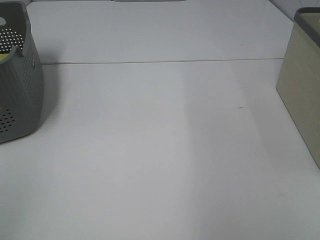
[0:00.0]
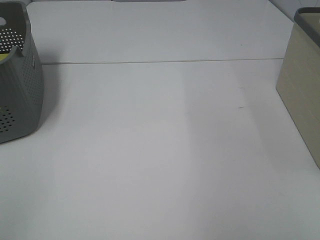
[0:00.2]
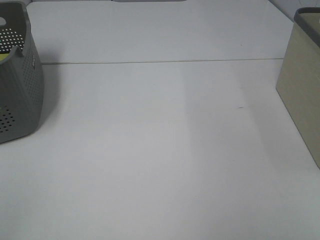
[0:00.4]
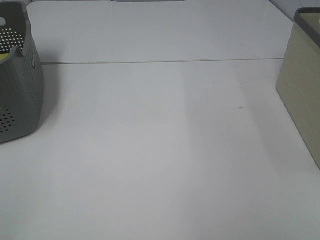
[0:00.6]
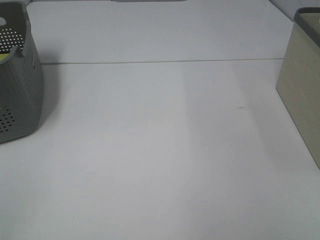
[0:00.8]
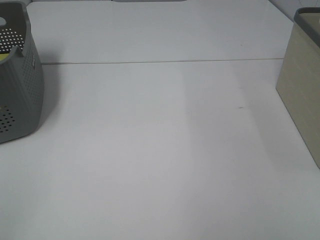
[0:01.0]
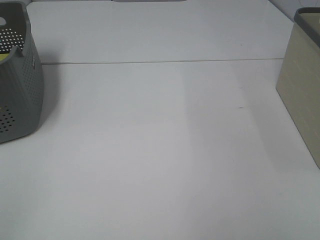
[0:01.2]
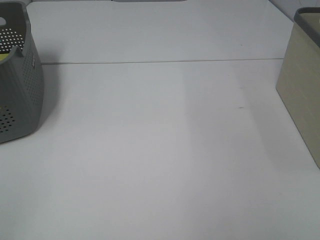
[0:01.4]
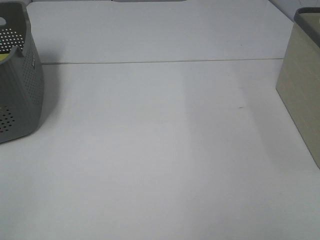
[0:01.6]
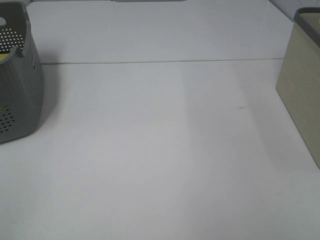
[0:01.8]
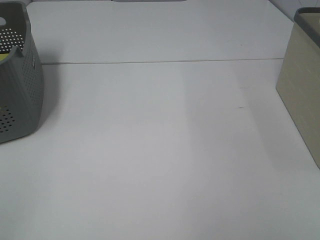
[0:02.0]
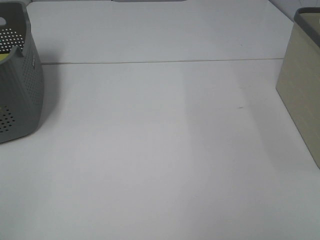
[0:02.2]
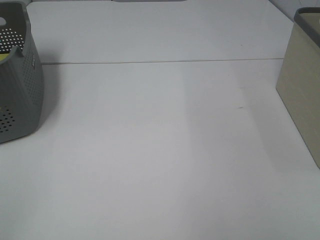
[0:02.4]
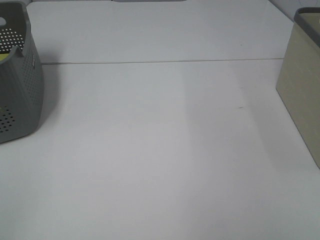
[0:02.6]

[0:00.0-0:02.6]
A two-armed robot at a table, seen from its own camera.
0:01.2 to 0:02.6: The two grippers keep their place.

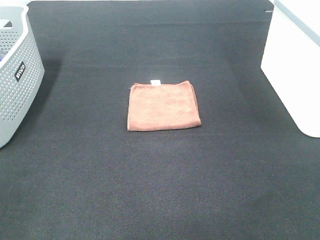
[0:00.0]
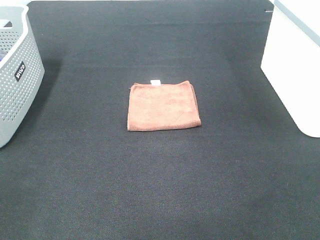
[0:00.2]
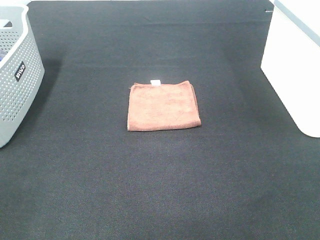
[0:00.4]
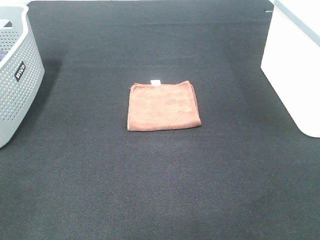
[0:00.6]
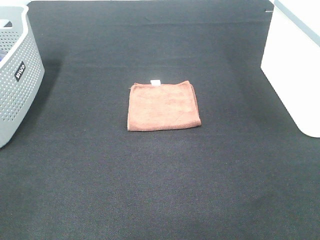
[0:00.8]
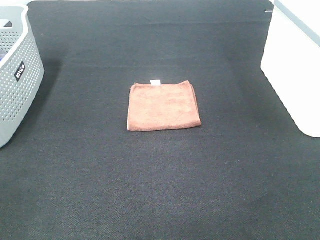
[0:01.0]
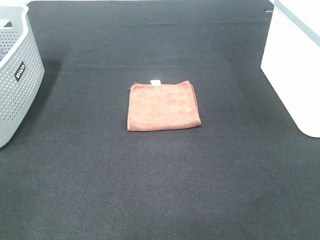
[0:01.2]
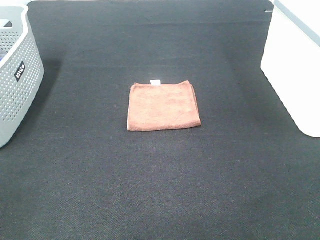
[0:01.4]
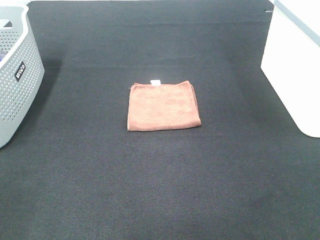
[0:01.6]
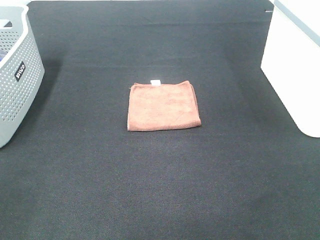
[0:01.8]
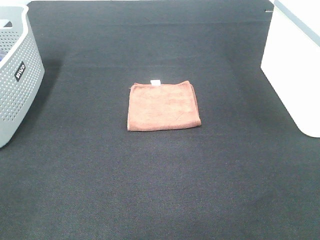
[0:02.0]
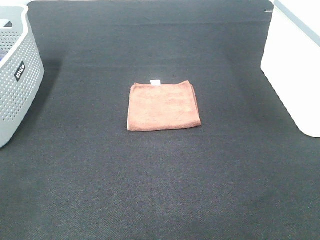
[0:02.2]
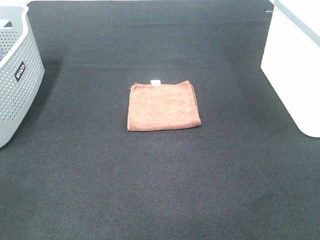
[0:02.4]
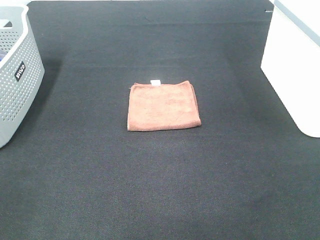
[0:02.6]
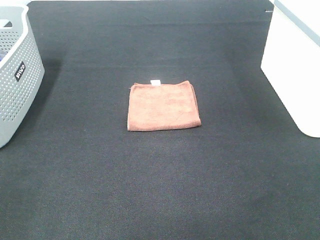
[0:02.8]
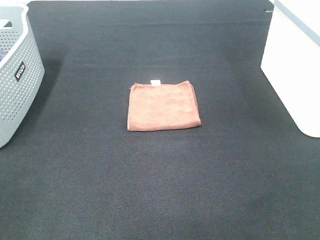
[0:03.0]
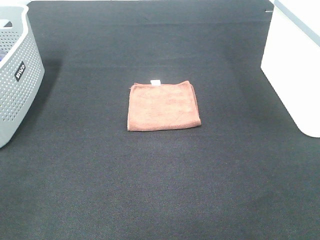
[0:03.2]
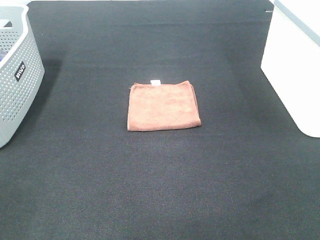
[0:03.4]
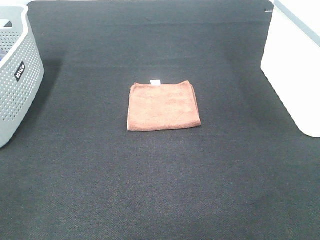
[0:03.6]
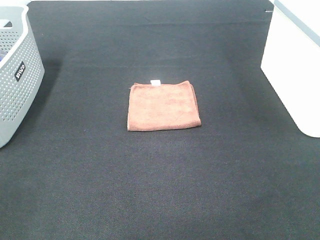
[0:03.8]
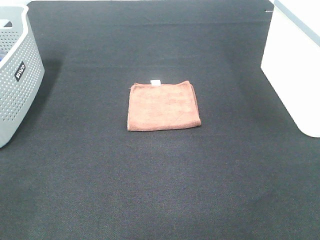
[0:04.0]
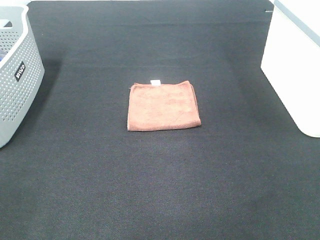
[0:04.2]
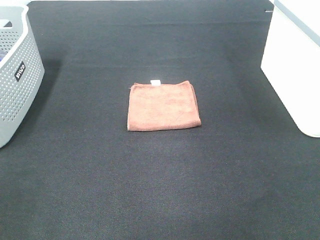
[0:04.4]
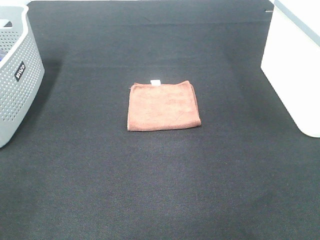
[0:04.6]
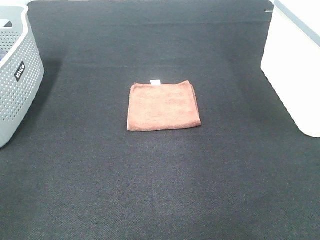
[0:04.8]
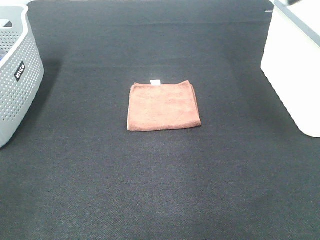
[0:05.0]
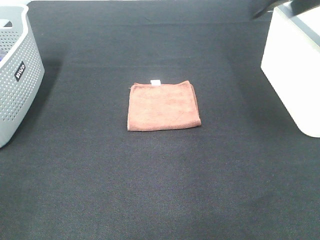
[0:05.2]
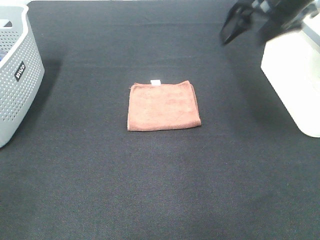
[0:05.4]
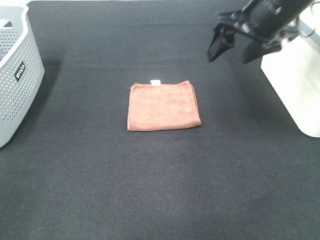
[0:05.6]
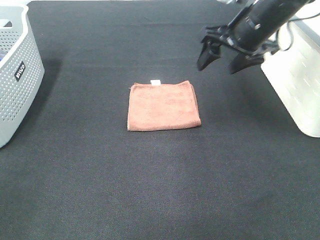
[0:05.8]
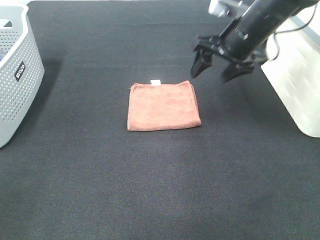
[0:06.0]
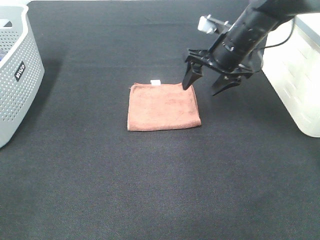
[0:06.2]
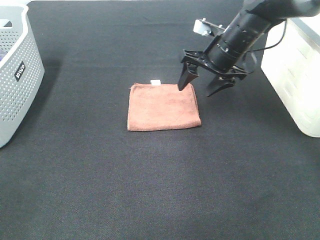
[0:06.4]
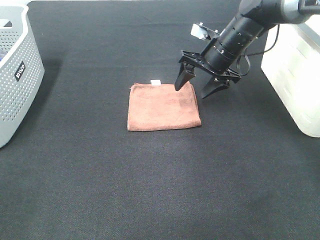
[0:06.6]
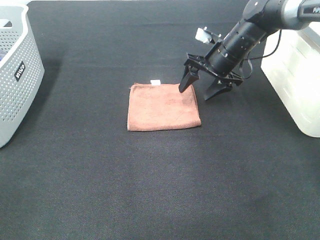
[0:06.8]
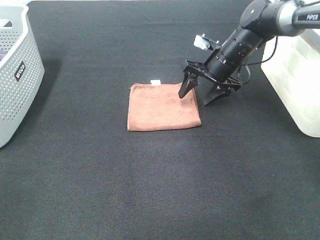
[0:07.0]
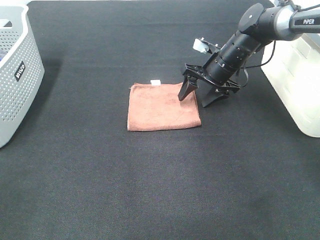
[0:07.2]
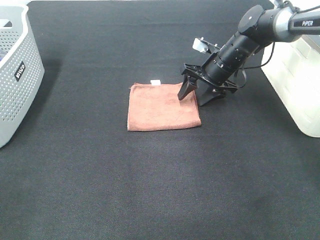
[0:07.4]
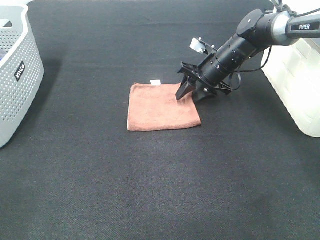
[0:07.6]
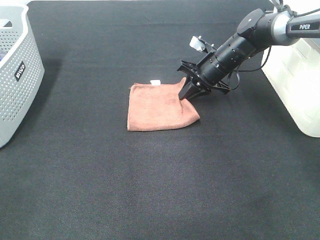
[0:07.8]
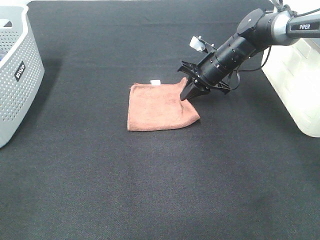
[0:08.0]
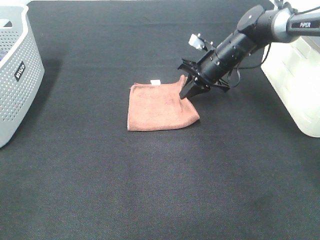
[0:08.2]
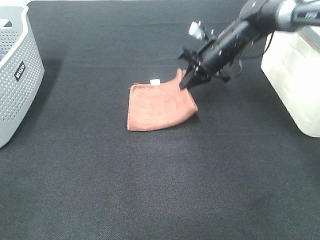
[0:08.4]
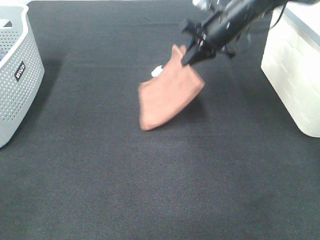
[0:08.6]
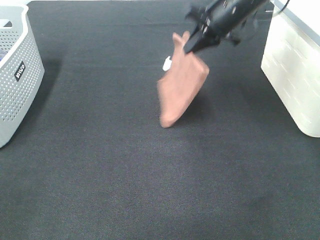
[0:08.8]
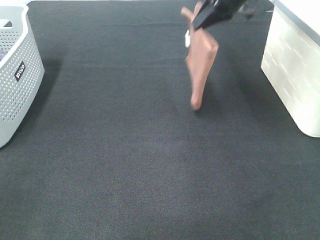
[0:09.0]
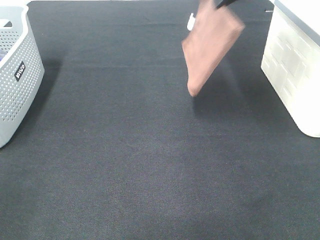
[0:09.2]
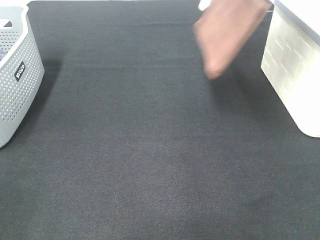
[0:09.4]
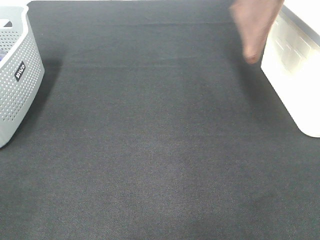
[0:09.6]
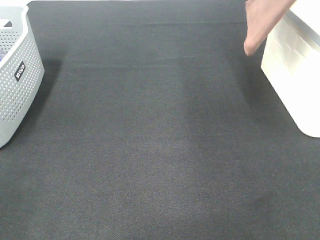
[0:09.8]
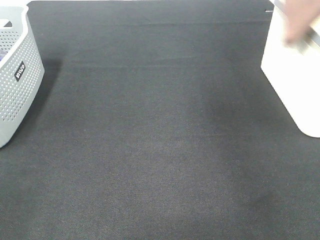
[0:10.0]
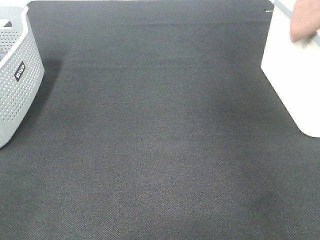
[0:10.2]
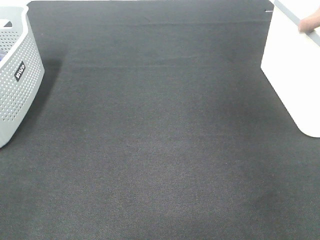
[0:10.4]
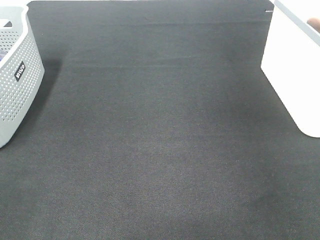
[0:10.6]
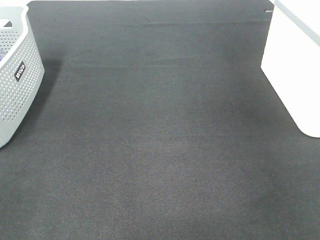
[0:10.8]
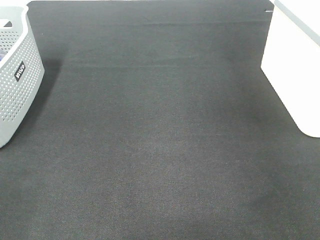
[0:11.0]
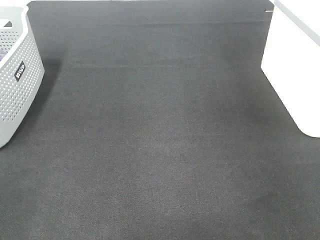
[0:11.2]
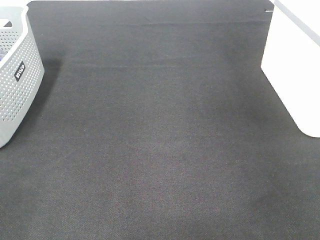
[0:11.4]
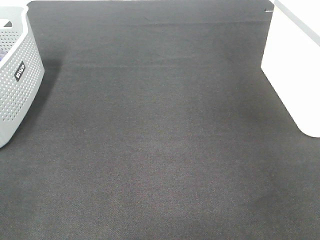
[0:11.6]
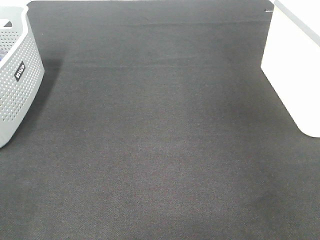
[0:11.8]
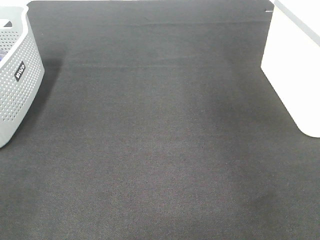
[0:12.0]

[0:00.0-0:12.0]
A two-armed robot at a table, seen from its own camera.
Step, 0:00.0 to 0:08.0: Right hand: grab the folded brown towel.
Step, 0:08.2 to 0:11.4: Right hand: place the brown towel in right basket.
0:00.0 to 0:03.0: Both grippers stay put.
0:04.4 to 0:06.0: The right gripper goes roughly 35 cm forward, downward and to the left.
0:06.0 to 0:07.6: The right gripper goes approximately 10 cm downward and forward, and closes up.
0:07.6 to 0:09.0: The right gripper heads upward, covering approximately 20 cm, and closes up.
0:09.0 to 0:10.4: The right gripper heads to the right and upward, covering approximately 25 cm.

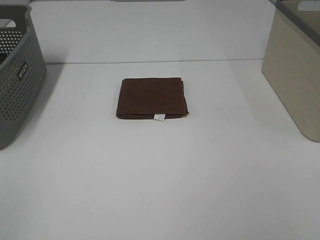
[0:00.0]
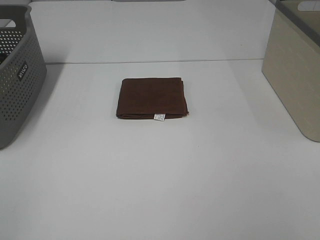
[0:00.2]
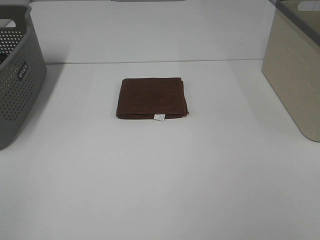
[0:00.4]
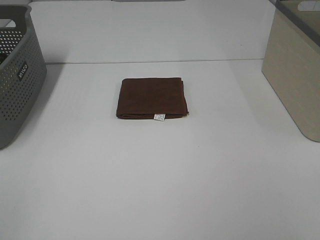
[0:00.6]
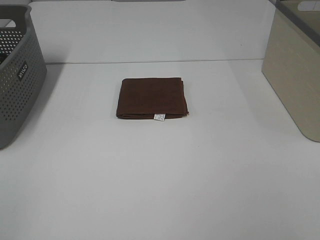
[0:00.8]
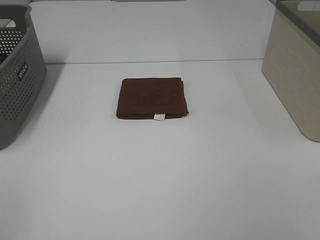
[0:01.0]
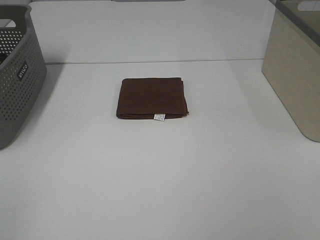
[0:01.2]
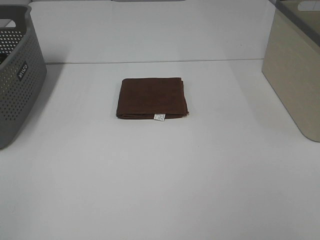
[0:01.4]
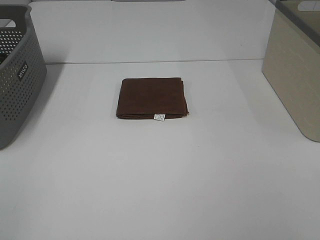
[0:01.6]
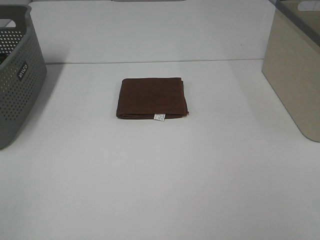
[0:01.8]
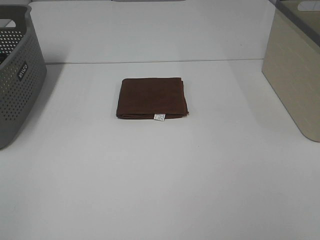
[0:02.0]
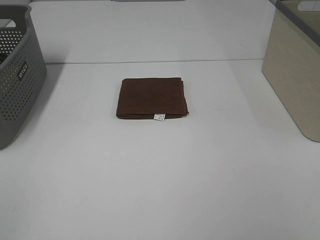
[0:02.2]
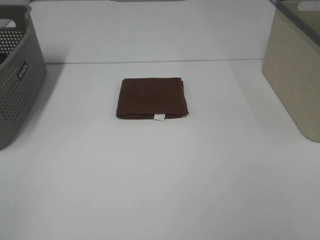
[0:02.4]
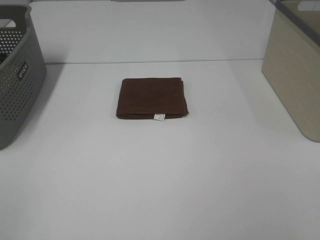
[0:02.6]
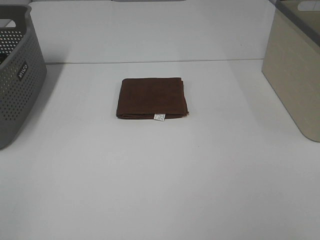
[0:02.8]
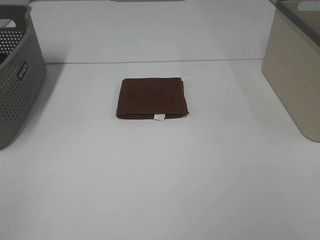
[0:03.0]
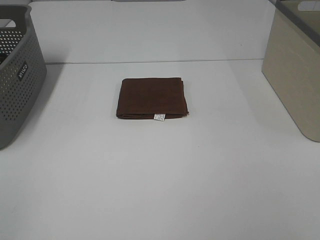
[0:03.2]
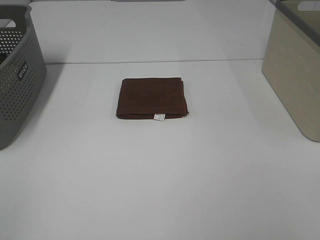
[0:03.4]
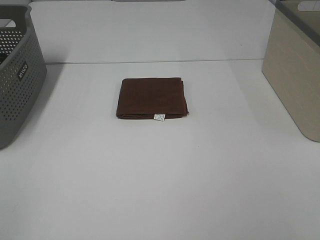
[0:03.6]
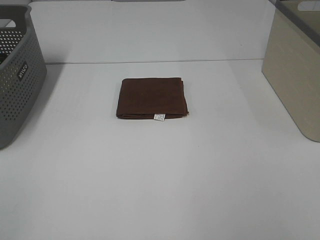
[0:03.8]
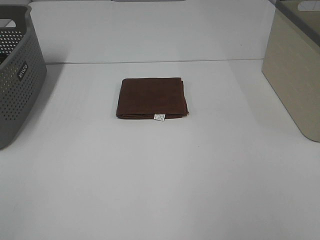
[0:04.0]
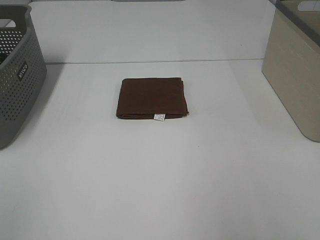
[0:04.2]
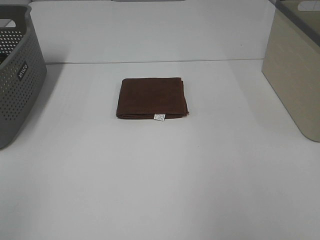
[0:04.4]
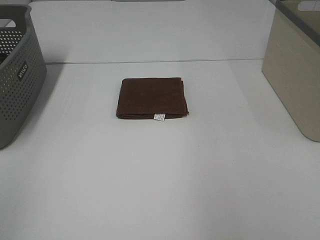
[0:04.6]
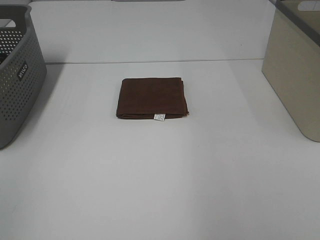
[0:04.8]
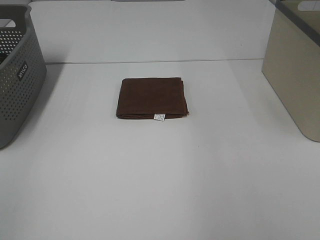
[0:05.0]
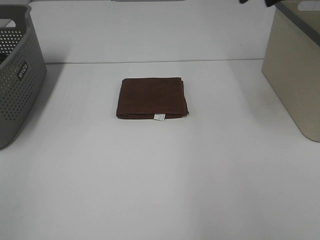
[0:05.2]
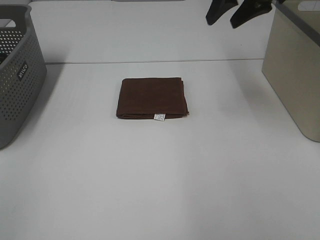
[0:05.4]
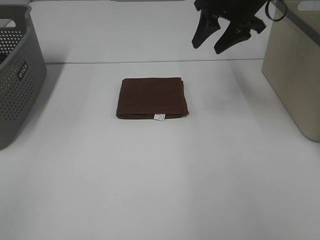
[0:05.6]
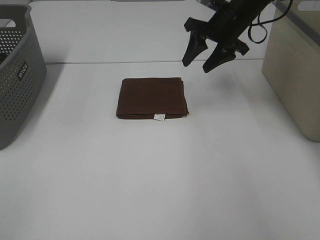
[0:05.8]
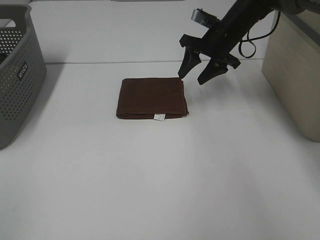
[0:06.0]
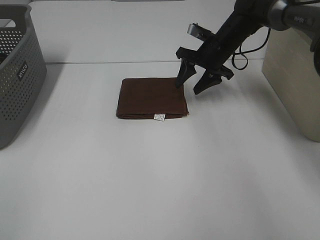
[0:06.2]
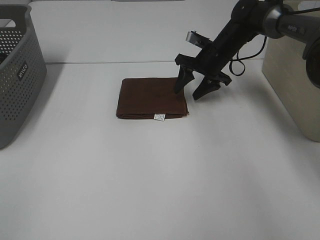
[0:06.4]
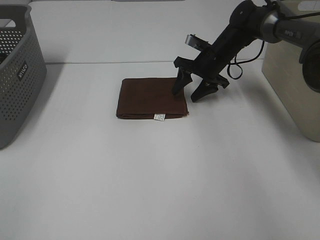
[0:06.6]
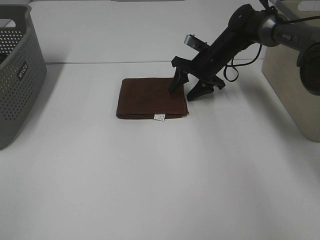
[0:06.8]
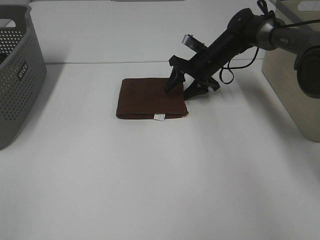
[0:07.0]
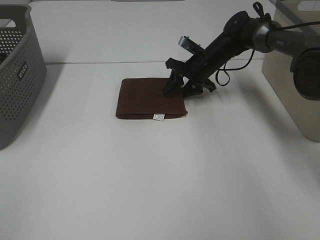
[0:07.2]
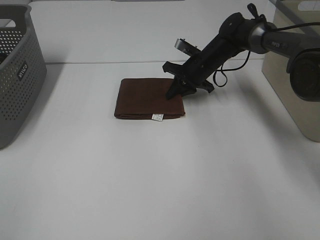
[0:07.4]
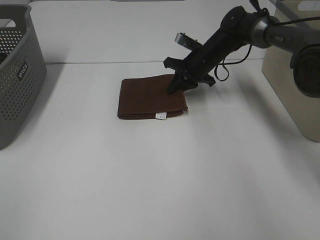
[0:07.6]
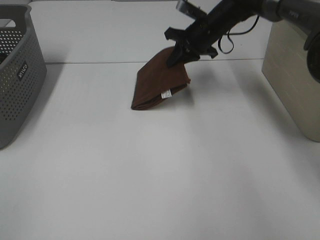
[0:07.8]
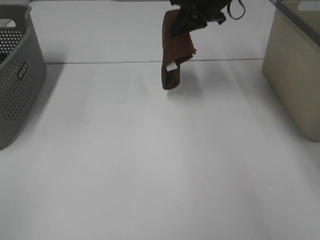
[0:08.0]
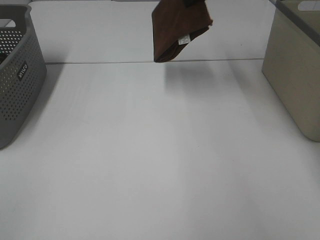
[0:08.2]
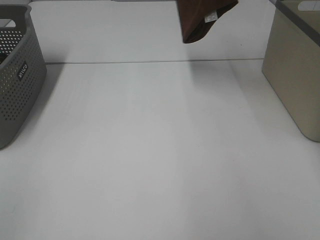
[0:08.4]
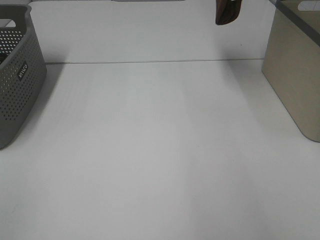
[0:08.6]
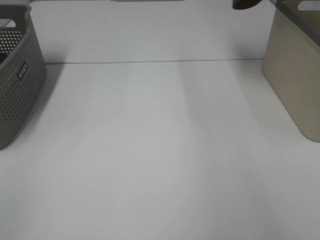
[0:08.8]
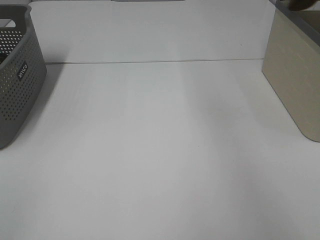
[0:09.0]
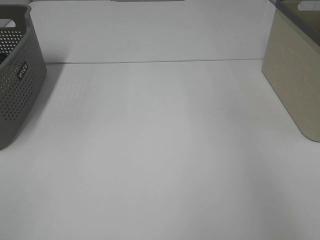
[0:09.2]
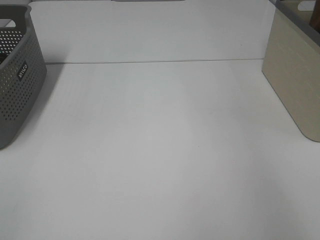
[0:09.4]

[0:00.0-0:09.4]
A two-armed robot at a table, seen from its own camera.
Step, 0:00.0 to 0:07.6: Right hand: grab the folded brown towel.
0:00.0 to 0:03.2: Both grippers stay about where they are.
0:04.8 to 0:06.2: The right gripper moves downward, forward and to the left, about 35 cm.
0:06.2 to 0:07.8: The right gripper heads upward, covering approximately 5 cm, and closes its fingers.
0:07.8 to 0:09.4: The right gripper shifts some 35 cm to the right and upward.
